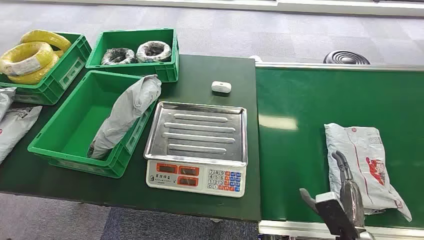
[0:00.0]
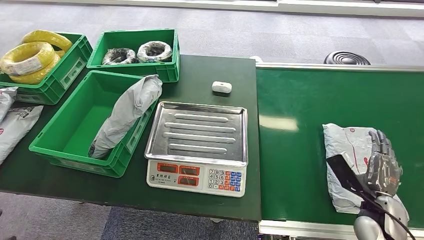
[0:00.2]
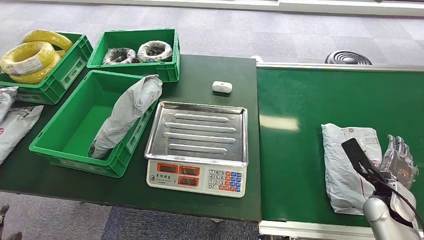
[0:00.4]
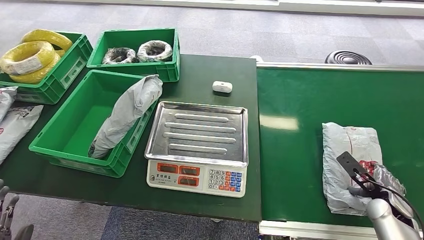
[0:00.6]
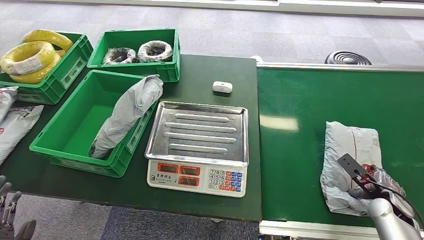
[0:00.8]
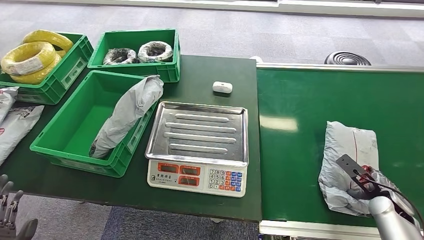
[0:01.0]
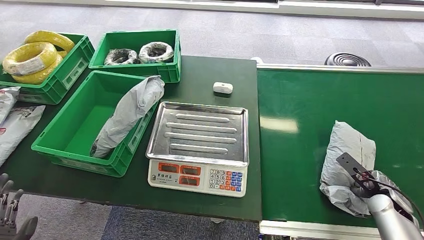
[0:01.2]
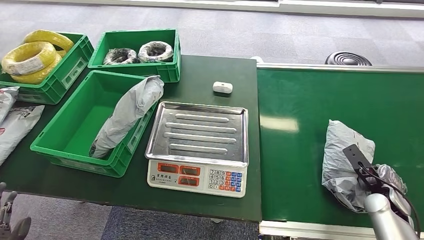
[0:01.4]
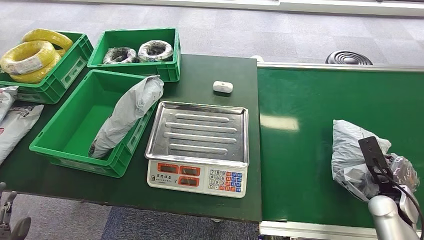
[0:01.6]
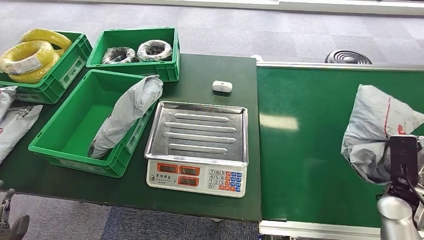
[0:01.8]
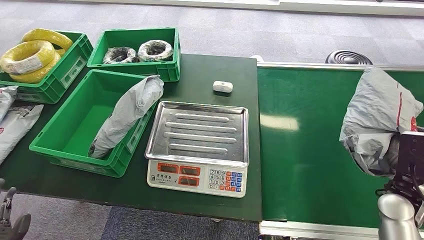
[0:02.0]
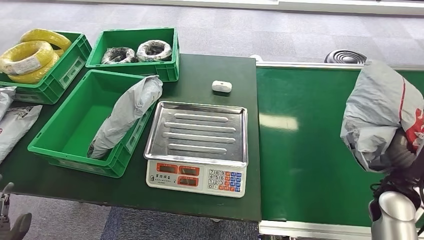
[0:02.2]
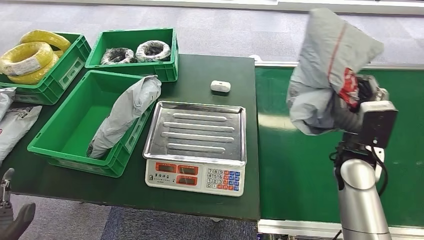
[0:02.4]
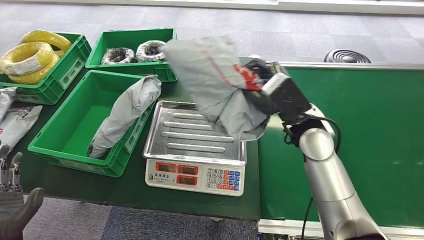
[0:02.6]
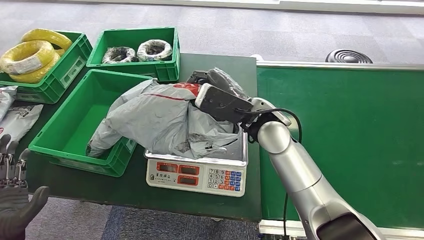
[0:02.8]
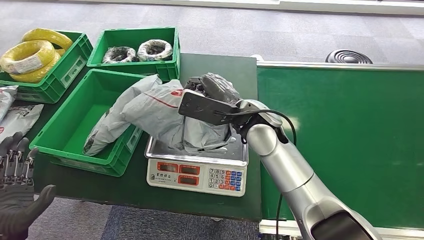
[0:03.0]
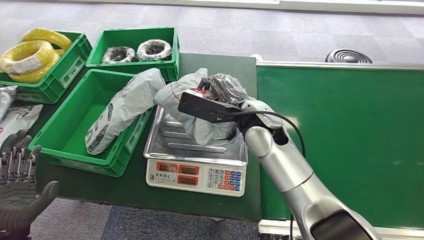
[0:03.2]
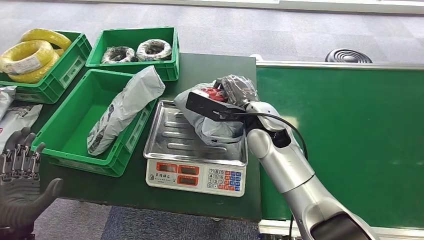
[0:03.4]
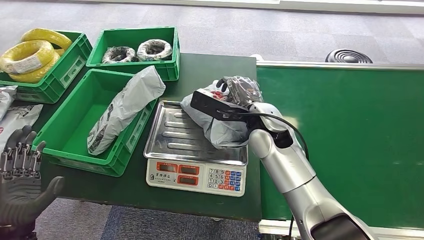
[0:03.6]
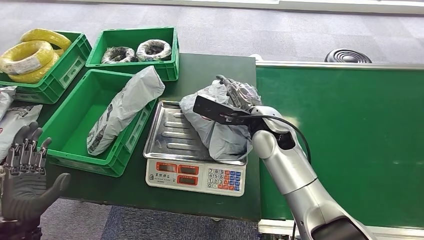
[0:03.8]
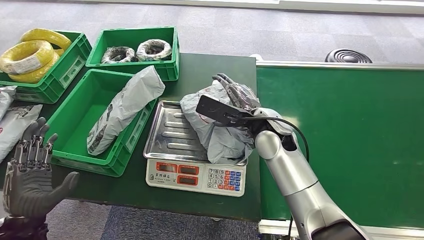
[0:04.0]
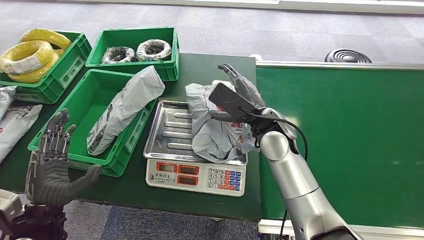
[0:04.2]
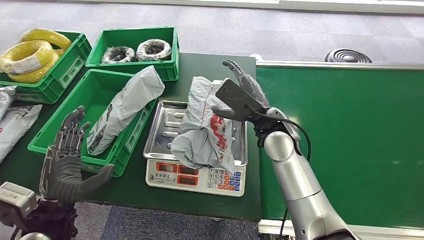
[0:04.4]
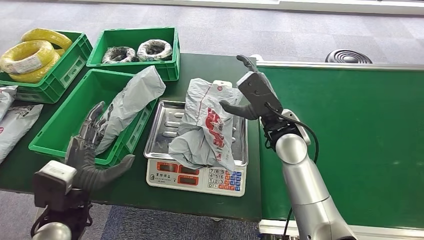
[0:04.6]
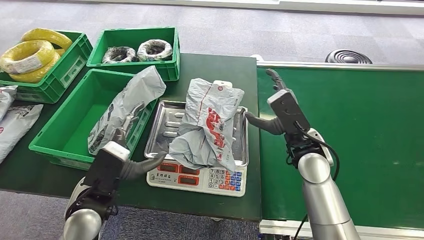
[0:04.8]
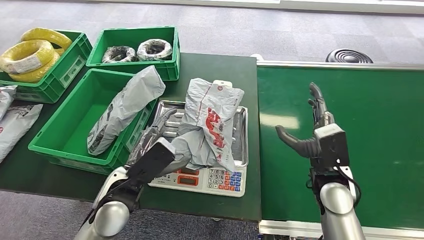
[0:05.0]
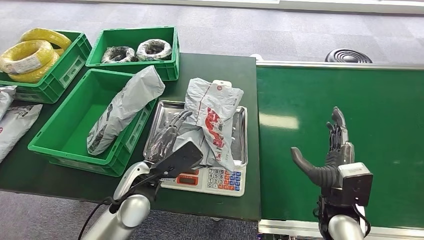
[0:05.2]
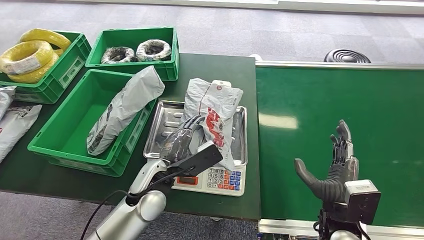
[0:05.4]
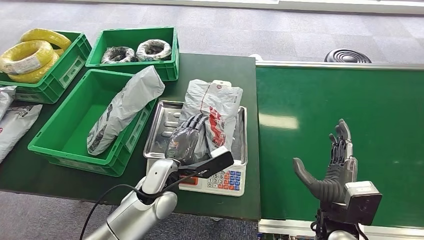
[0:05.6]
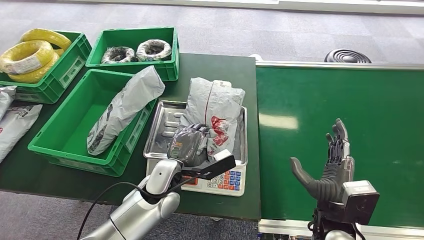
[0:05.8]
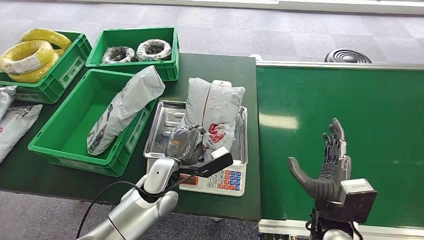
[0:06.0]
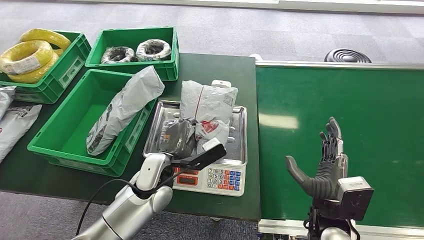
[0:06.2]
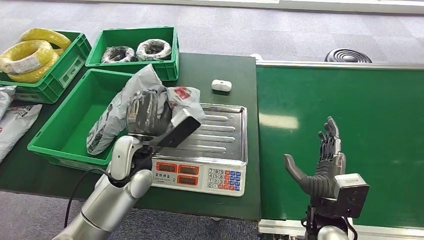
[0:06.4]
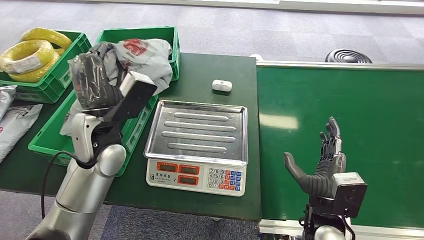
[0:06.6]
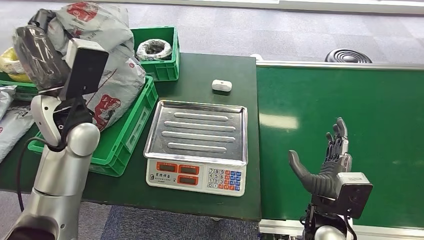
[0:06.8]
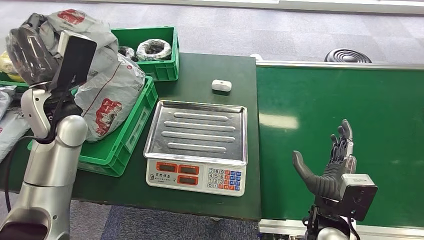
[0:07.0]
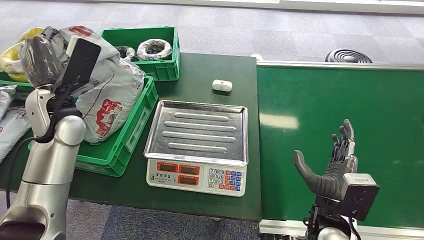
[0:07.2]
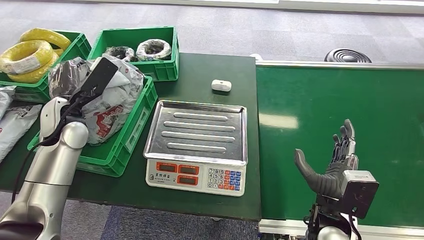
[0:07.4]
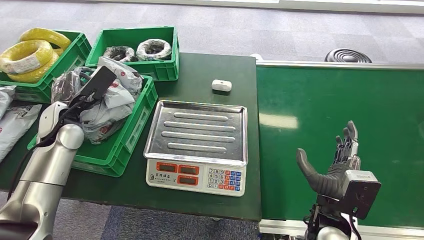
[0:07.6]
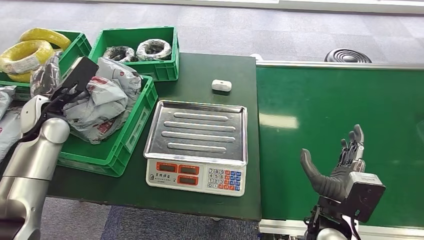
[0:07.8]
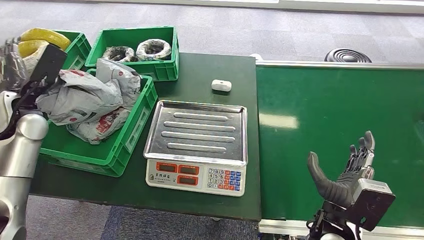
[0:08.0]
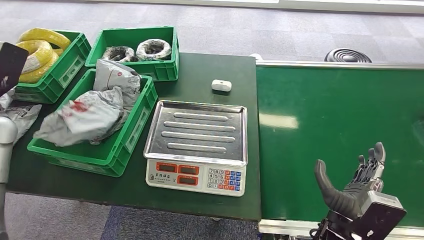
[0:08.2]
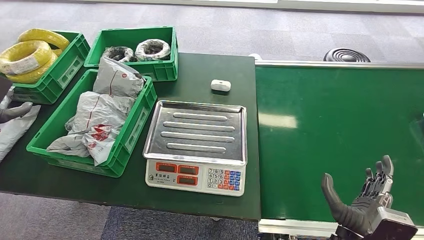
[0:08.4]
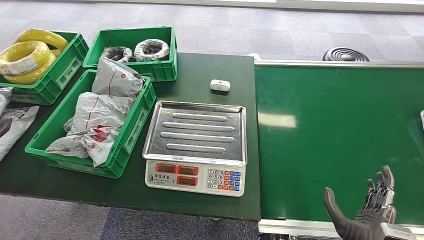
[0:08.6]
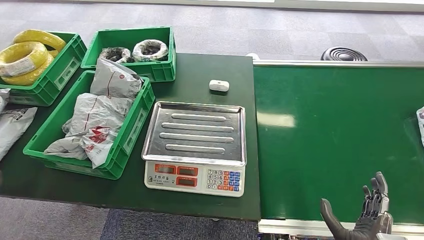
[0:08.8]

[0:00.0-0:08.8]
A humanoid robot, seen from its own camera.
Step, 0:00.0 to 0:01.6: Pick up the package from the conveyor belt.
Step, 0:02.8 to 0:05.2: Place the package onto the inbound machine.
Step, 0:05.4 to 0:06.8: Pick up the package from the inbound machine.
Step, 0:07.0 to 0:08.8: Place the package into the parcel locker.
